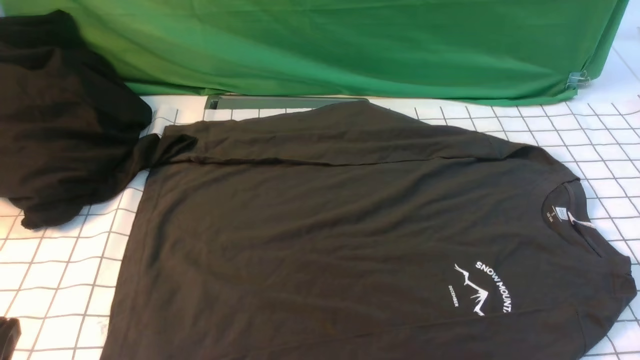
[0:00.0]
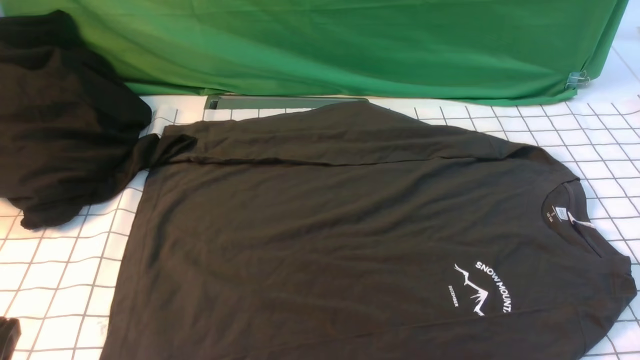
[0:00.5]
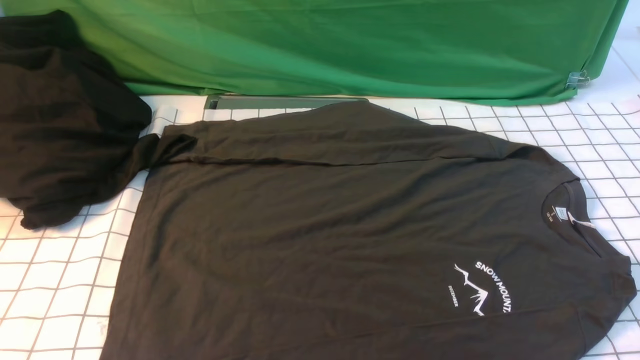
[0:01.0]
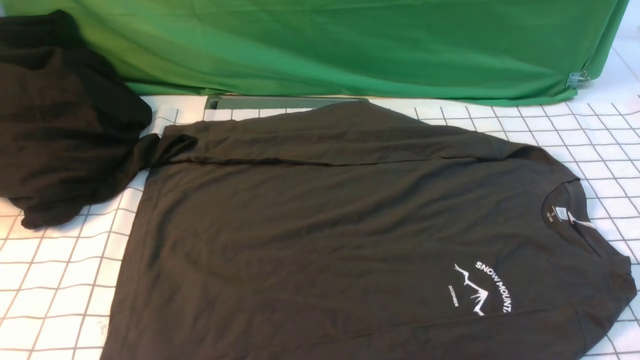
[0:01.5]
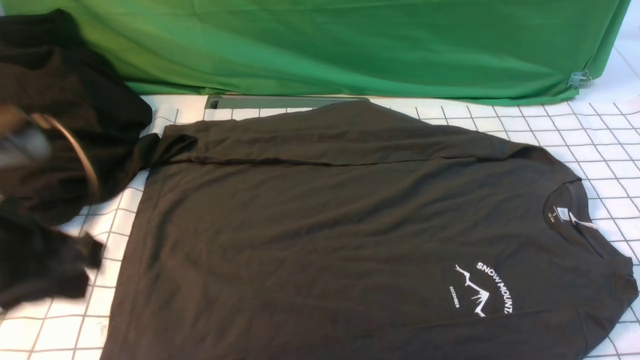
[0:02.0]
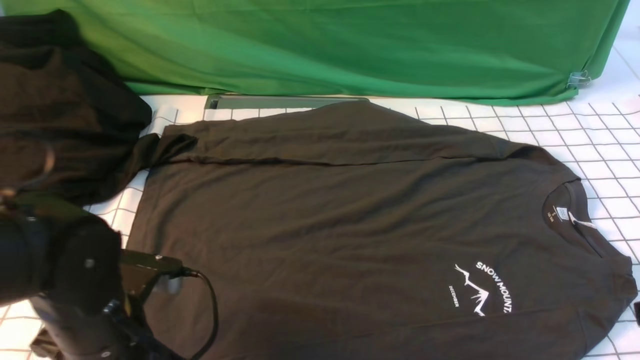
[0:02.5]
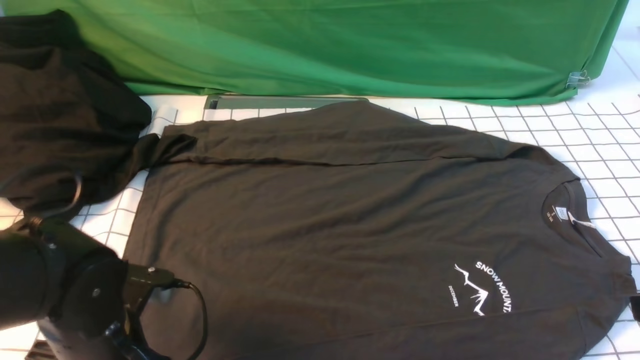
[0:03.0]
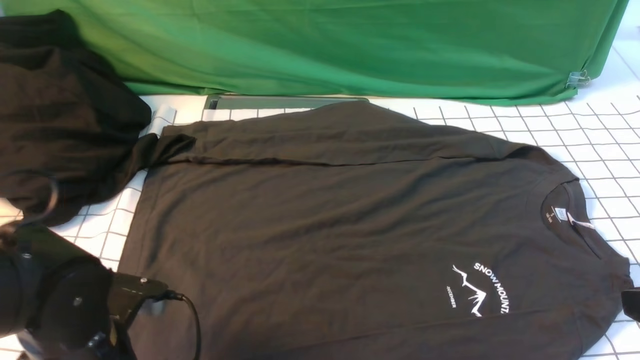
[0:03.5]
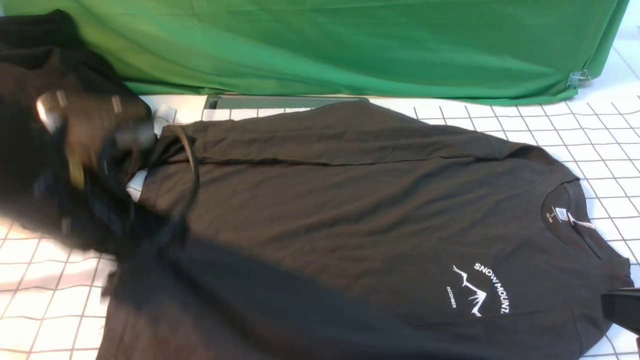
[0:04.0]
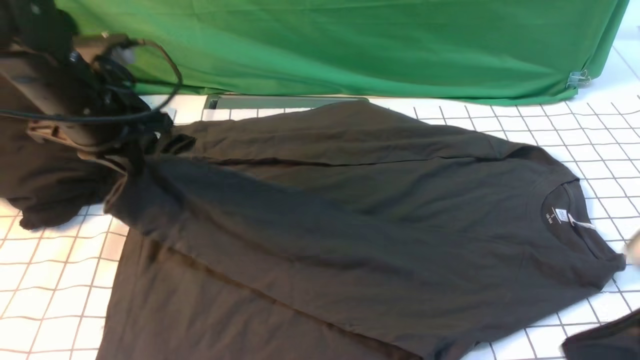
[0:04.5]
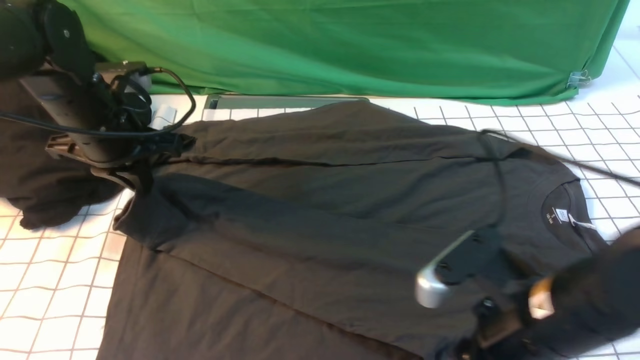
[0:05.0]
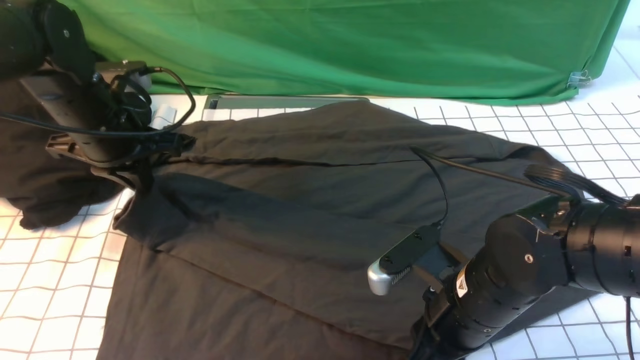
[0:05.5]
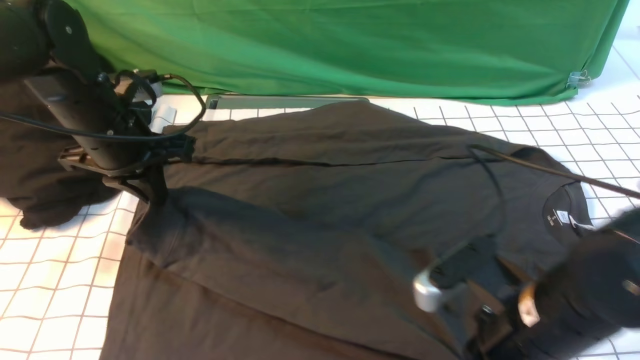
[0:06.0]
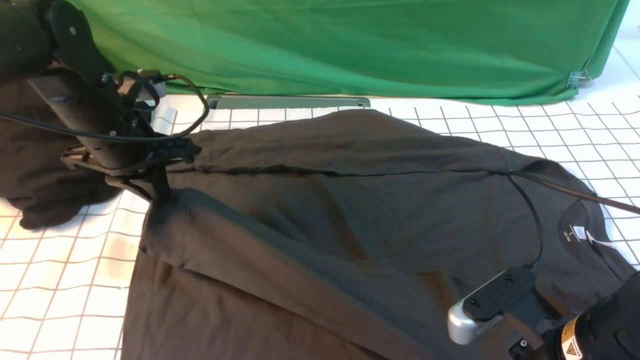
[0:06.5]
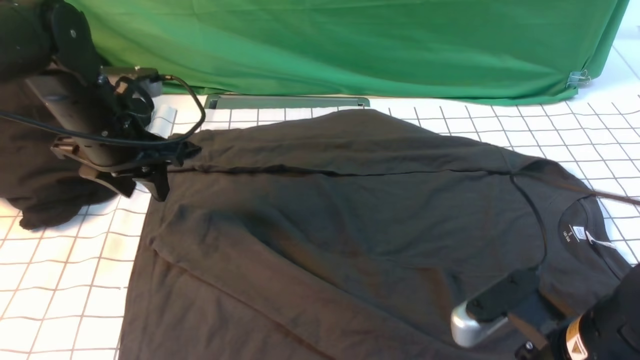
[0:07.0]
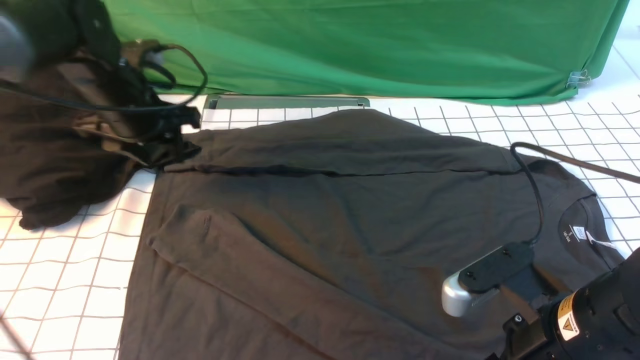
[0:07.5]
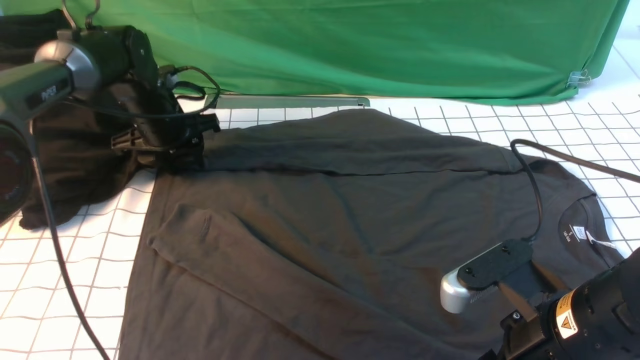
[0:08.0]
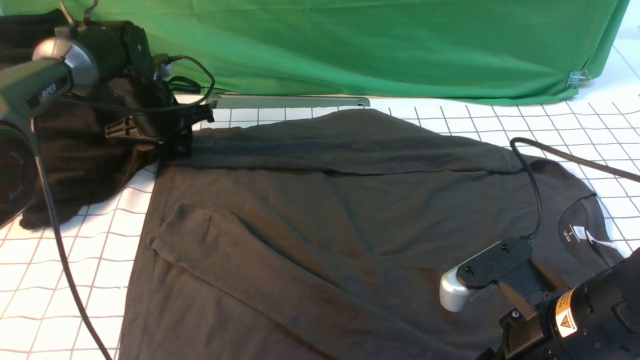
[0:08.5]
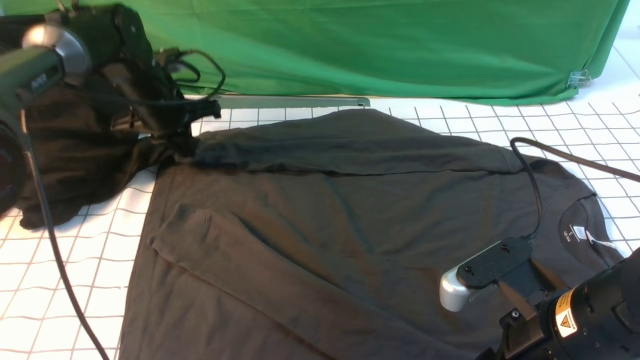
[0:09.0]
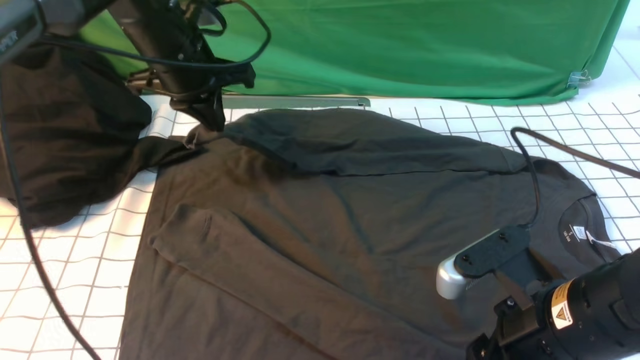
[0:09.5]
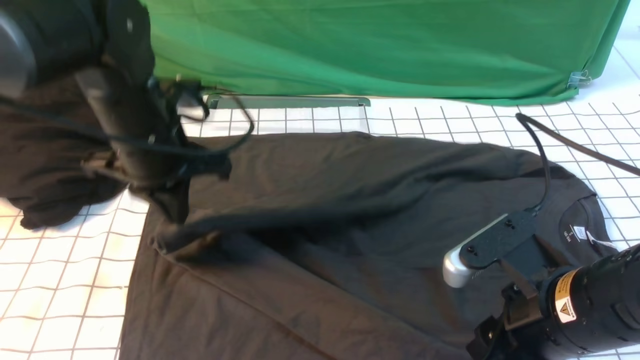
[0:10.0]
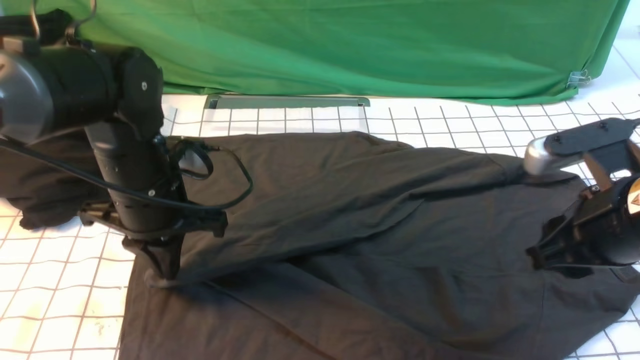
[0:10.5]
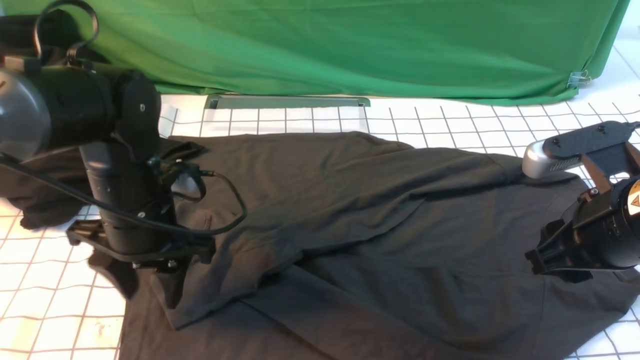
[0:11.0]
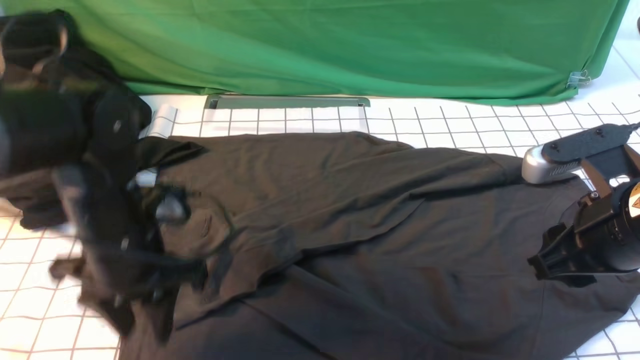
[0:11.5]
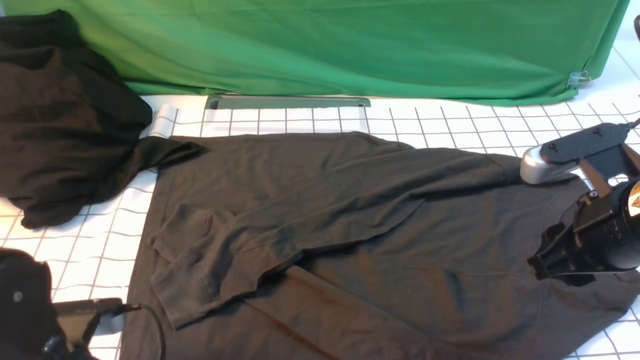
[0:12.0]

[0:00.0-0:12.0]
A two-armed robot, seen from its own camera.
Step, 0:00.0 to 0:03.5: use the left arm to clamp the cuff closest to it.
Step, 0:04.0 to 0:07.0: use the left arm to drag and place the cuff at the centered position on the left edge of the fabric.
Step, 0:07.5 to 0:08.5: use the left arm to clamp the cuff farthest from it.
Step, 0:09.5 to 0:10.5: use the left arm to drag and drop the cuff onto the cuff closest to the left arm.
0:00.0 to 0:02.0: The right gripper travels upward by approximately 5 cm, while the left gripper shifts roughly 15 cm forward and upward.
0:02.0 to 0:04.0: Both grippers move forward, some 5 cm. The left gripper goes downward and returns, some 15 cm each way, and opens and closes again.
0:04.0 to 0:06.0: The left gripper travels forward and downward by about 15 cm. Meanwhile the right gripper moves to the left, downward and forward, roughly 15 cm, and opens, then closes once more.
0:06.0 to 0:08.0: The left gripper shifts approximately 15 cm forward and downward, and opens up, while the right gripper opens up.
0:08.0 to 0:10.0: The left gripper goes approximately 20 cm backward, upward and to the right, and closes.
0:10.0 to 0:12.0: The left gripper shifts approximately 20 cm backward and downward, and opens. The right gripper heads to the right, covering some 5 cm.

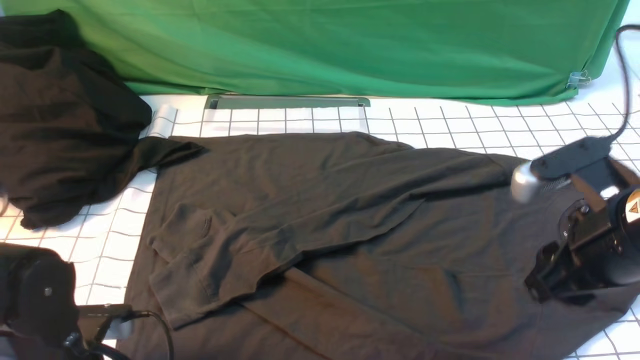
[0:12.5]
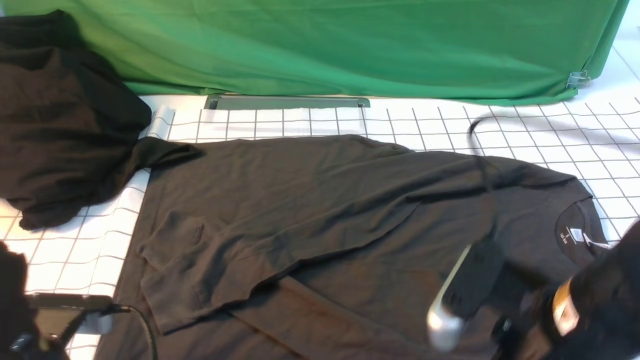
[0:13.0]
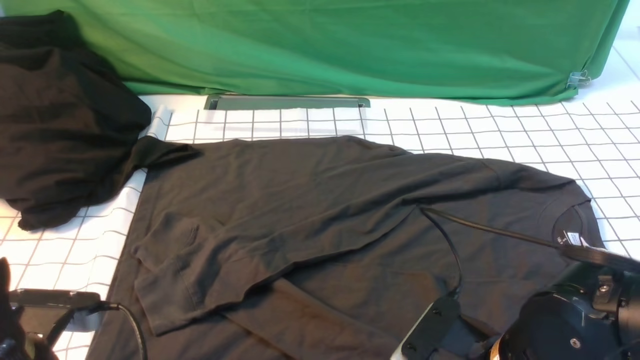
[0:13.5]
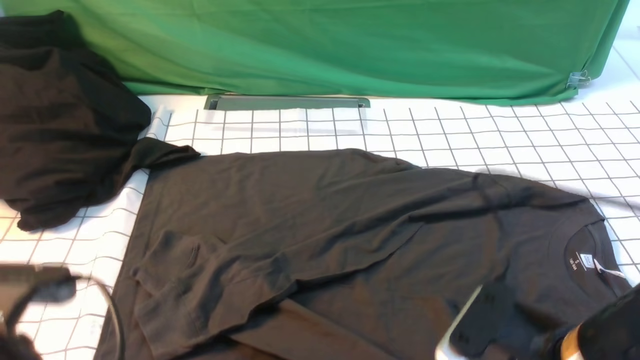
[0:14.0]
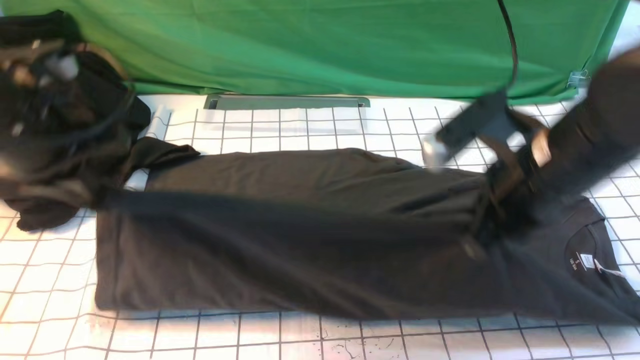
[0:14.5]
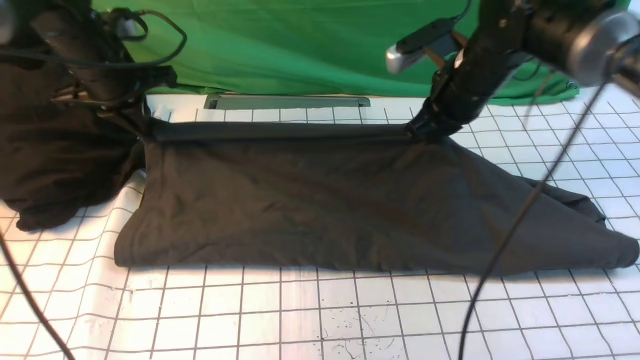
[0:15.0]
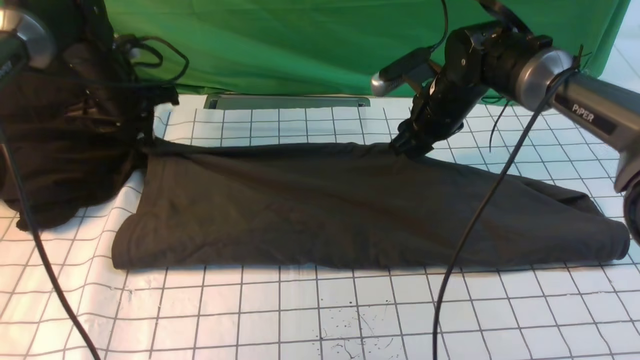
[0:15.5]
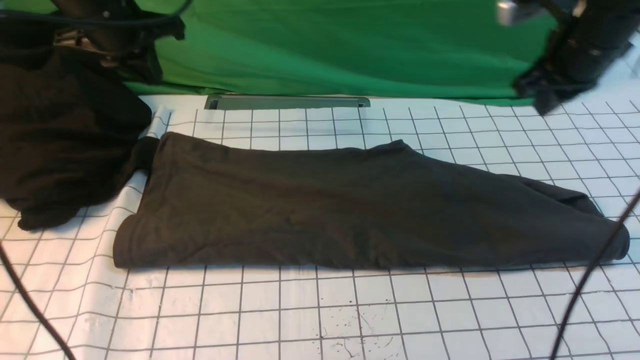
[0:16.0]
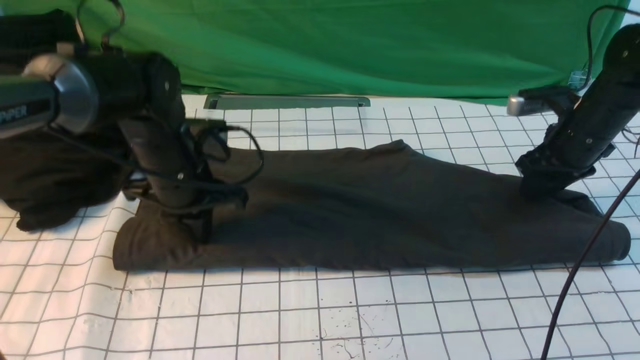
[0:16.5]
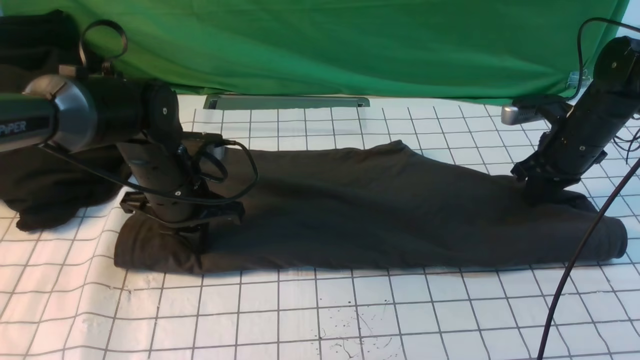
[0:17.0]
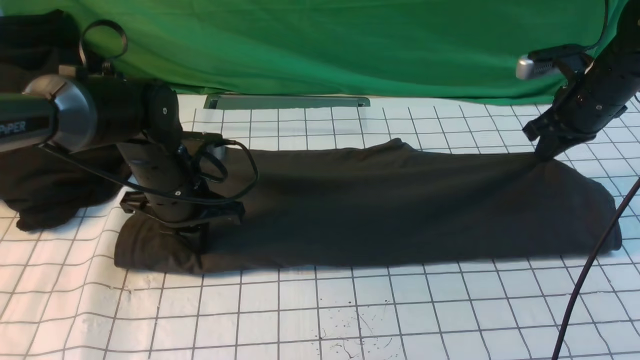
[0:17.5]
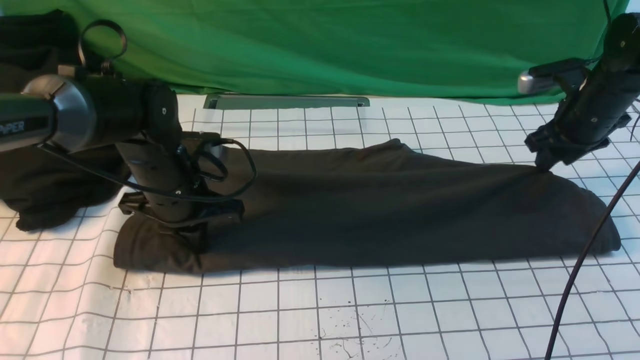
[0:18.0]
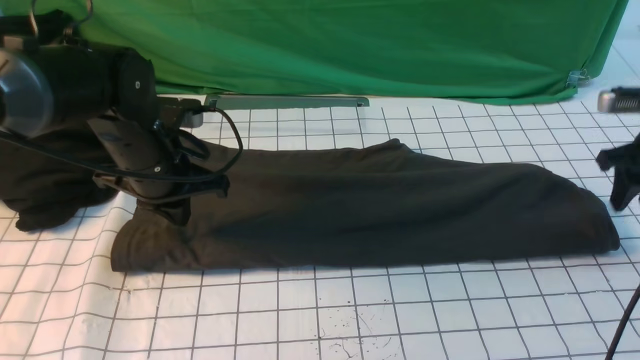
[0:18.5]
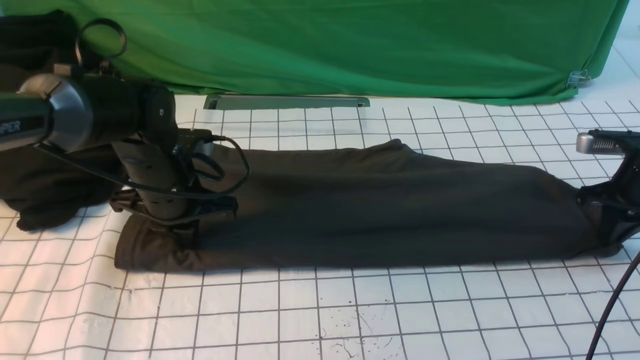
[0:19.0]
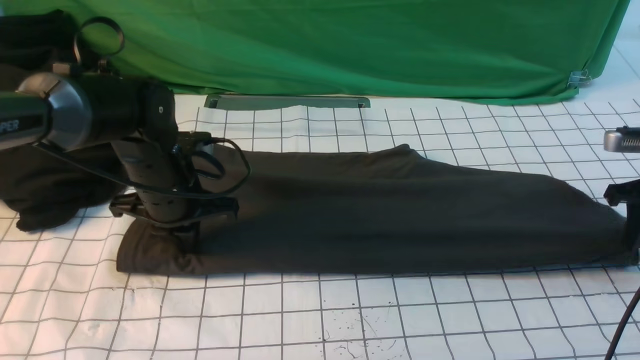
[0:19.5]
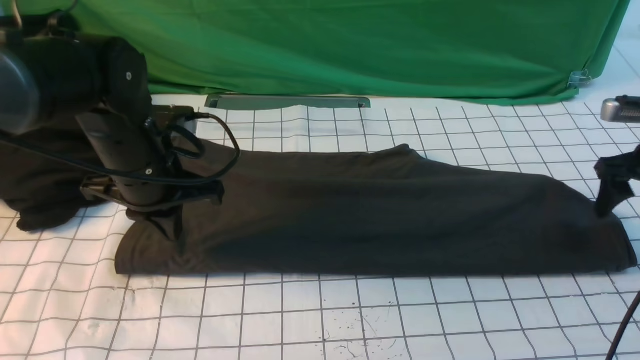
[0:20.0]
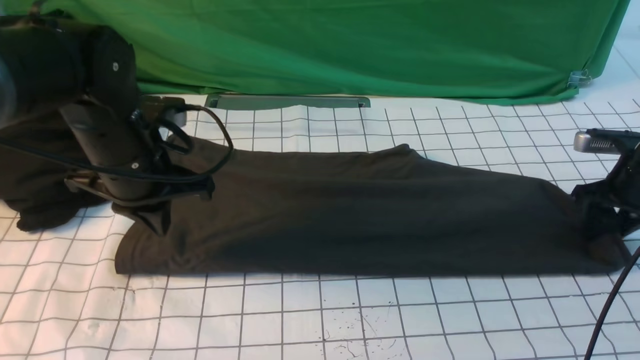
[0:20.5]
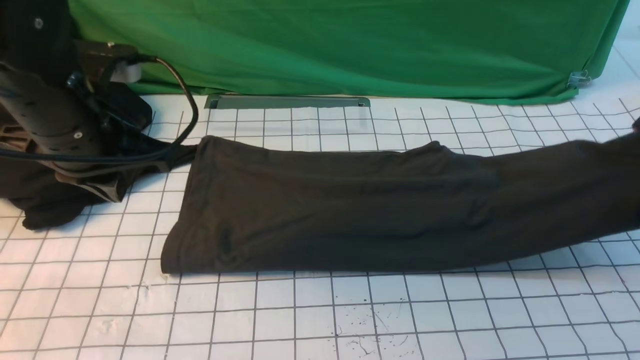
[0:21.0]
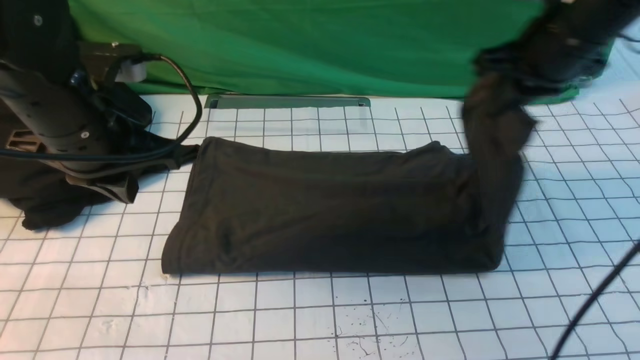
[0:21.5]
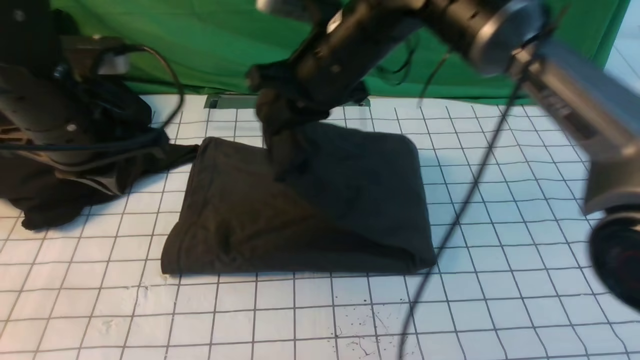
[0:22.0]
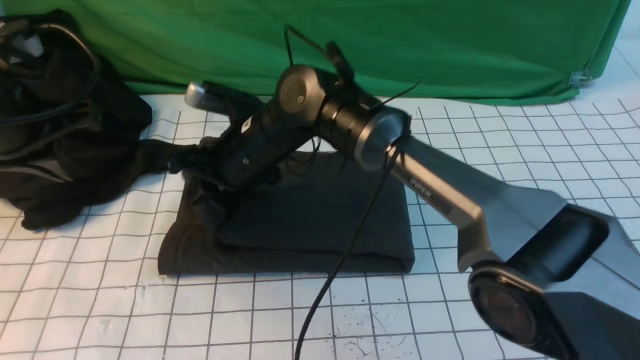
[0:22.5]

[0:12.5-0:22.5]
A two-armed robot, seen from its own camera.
Step, 0:14.5 to 0:15.5: use both arms to drag the lower edge of the fabric forward and fold it over the upper edge.
Step, 0:16.0 to 0:20.5: use the right arm to clamp the right edge of the fabric.
0:12.5 to 0:14.5: The left gripper moves upward and forward, about 20 cm, and closes up, while the right gripper heads to the left and forward, covering roughly 10 cm, and closes its fingers.
0:14.5 to 0:16.5: The left gripper moves downward, to the right and forward, approximately 15 cm, and opens and closes again; the right gripper goes roughly 25 cm forward, to the right and downward, and opens up.
0:16.5 to 0:18.5: The right gripper heads to the right, covering roughly 5 cm, and closes and opens again.
0:18.5 to 0:20.5: The left gripper moves some 5 cm.
0:20.5 to 0:22.5: The right gripper goes about 50 cm to the left, and closes and opens again, while the left gripper travels to the left and upward by some 10 cm.
